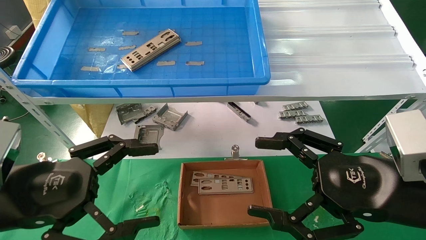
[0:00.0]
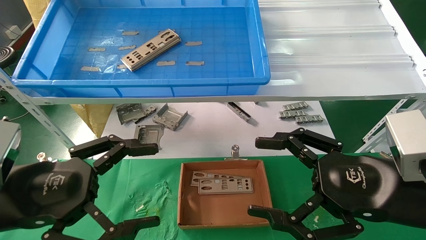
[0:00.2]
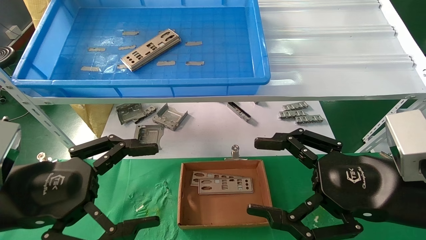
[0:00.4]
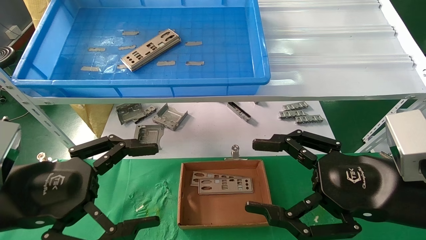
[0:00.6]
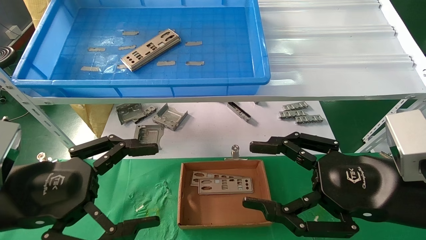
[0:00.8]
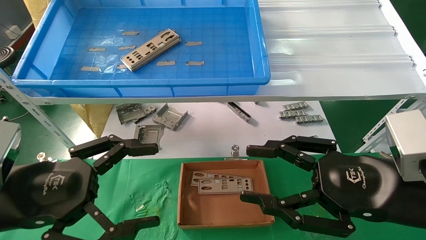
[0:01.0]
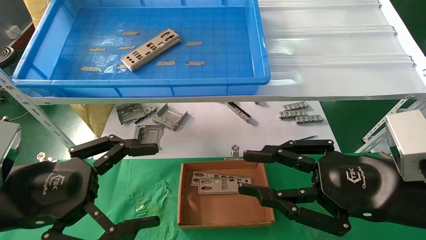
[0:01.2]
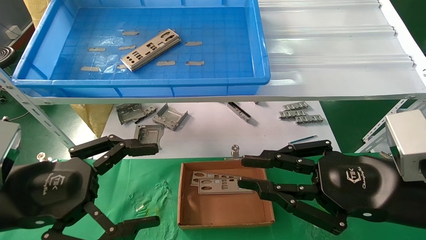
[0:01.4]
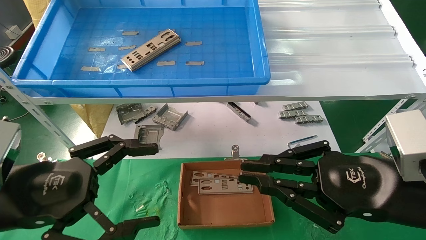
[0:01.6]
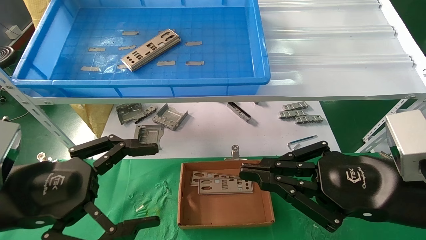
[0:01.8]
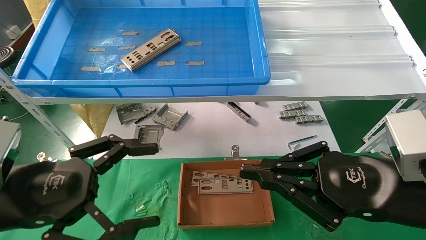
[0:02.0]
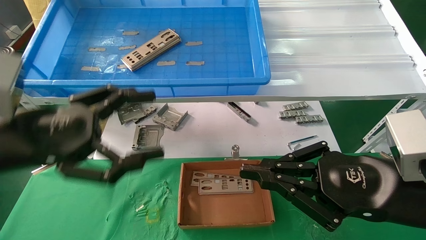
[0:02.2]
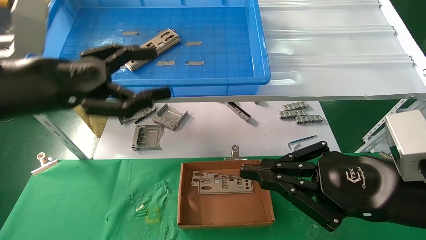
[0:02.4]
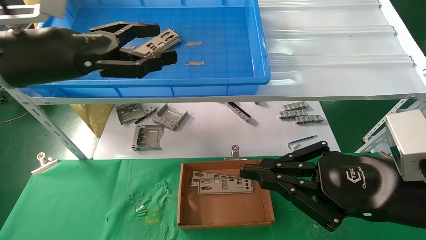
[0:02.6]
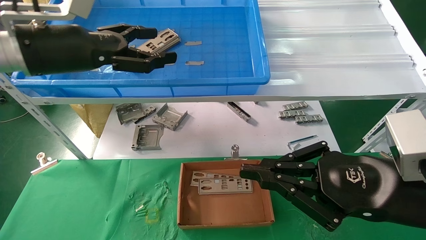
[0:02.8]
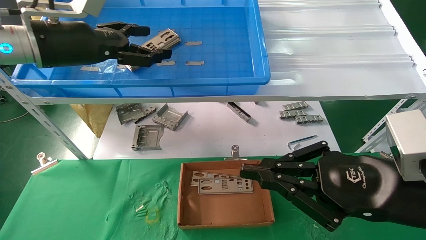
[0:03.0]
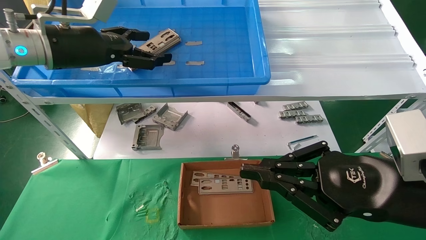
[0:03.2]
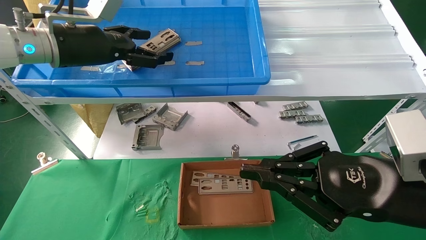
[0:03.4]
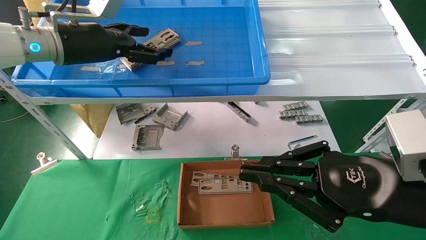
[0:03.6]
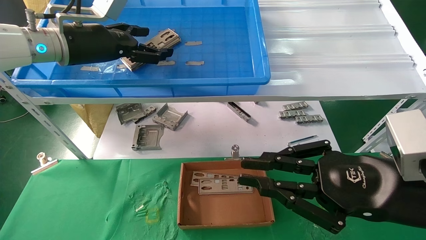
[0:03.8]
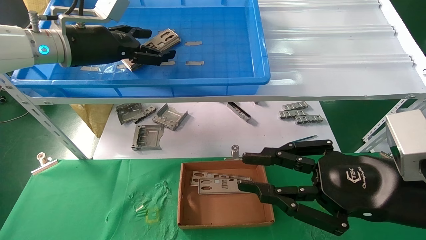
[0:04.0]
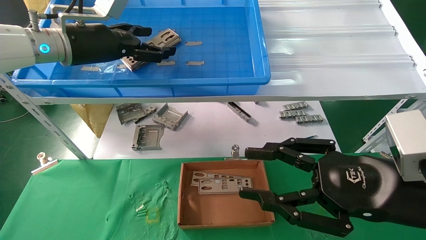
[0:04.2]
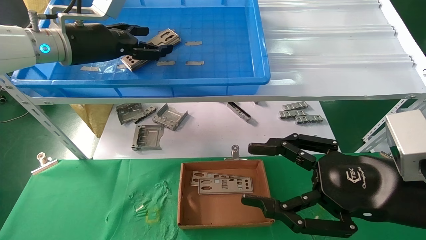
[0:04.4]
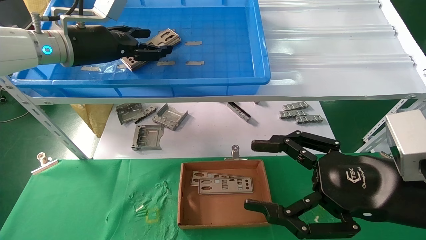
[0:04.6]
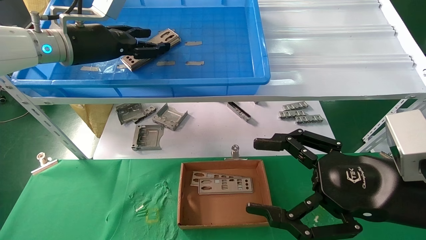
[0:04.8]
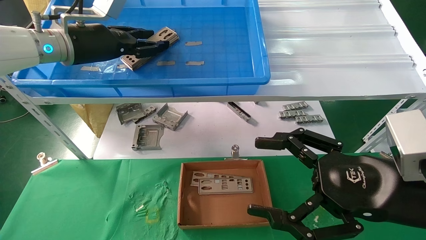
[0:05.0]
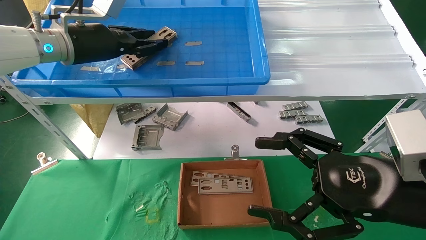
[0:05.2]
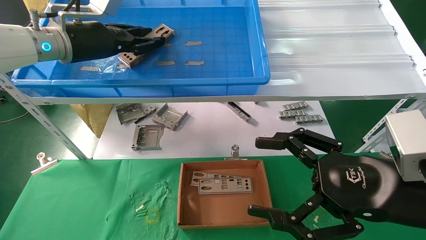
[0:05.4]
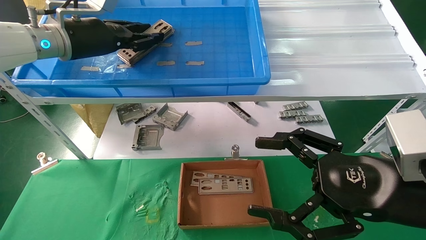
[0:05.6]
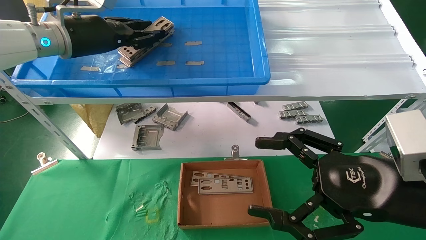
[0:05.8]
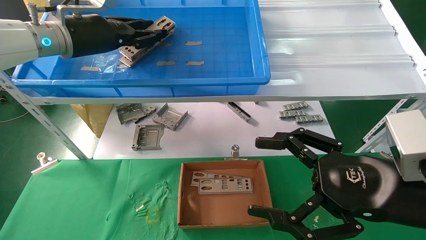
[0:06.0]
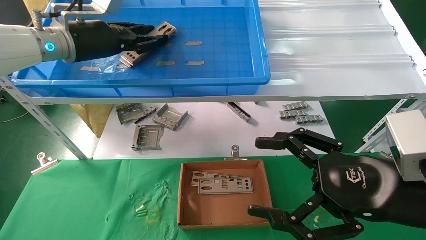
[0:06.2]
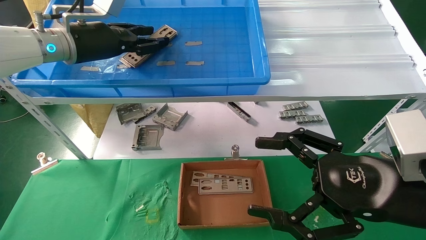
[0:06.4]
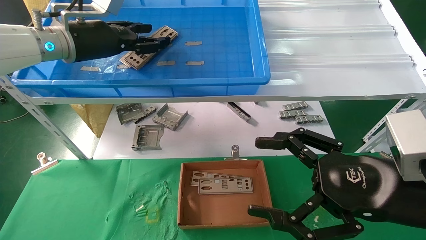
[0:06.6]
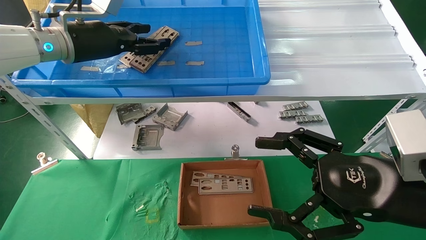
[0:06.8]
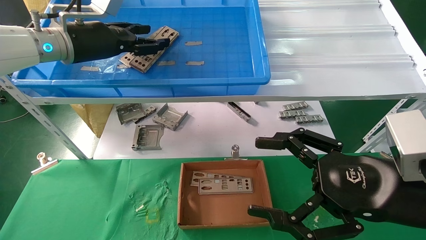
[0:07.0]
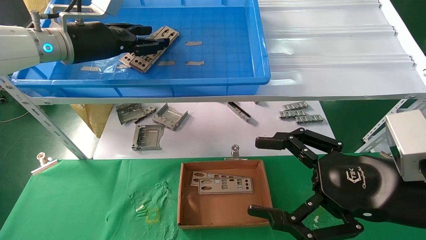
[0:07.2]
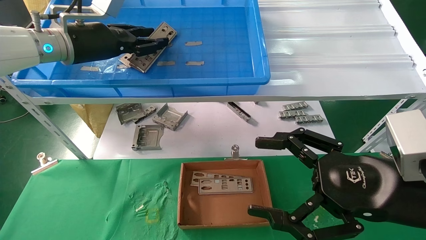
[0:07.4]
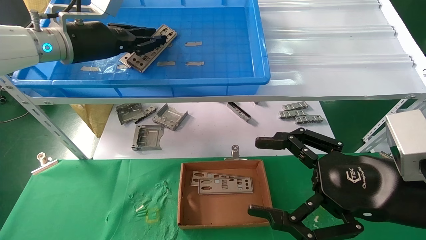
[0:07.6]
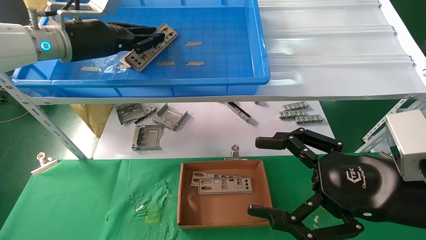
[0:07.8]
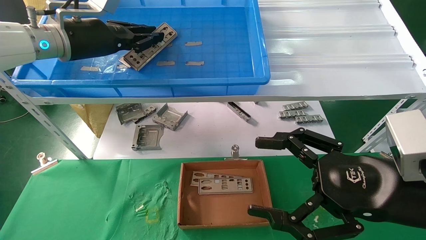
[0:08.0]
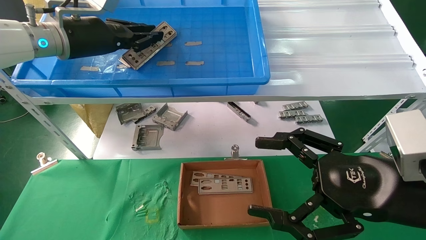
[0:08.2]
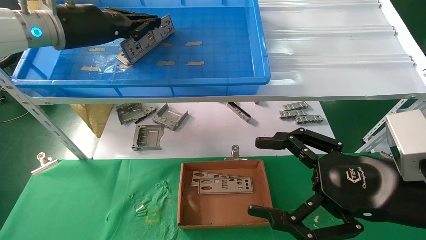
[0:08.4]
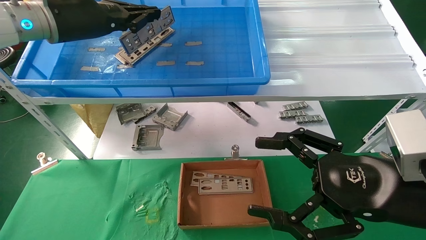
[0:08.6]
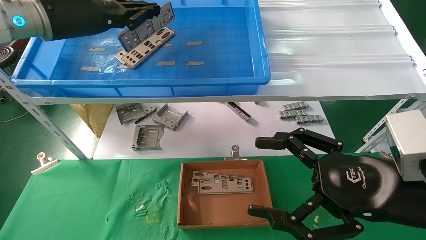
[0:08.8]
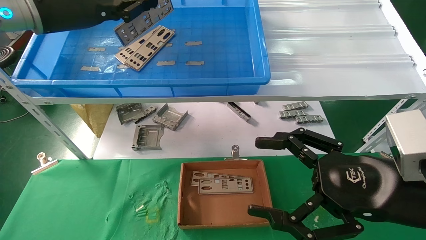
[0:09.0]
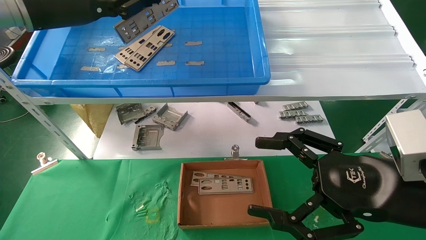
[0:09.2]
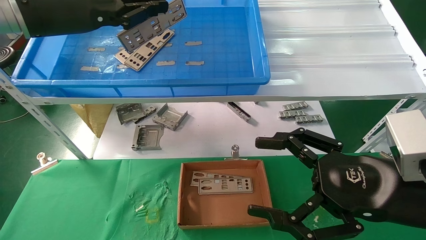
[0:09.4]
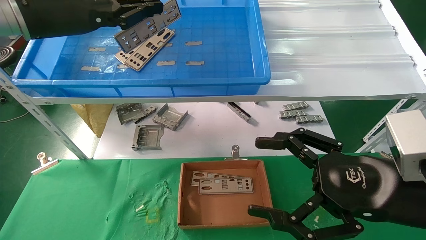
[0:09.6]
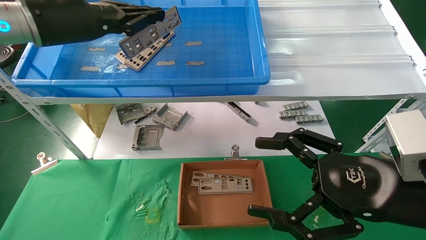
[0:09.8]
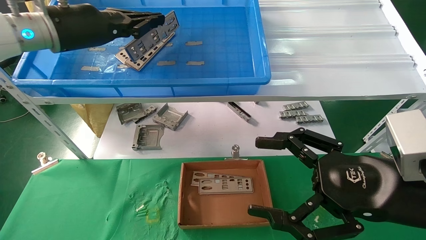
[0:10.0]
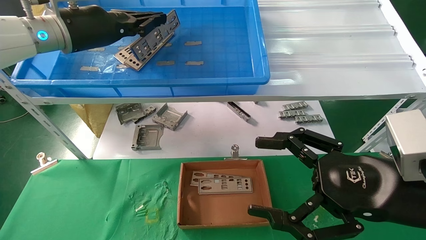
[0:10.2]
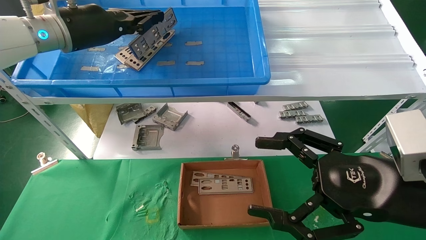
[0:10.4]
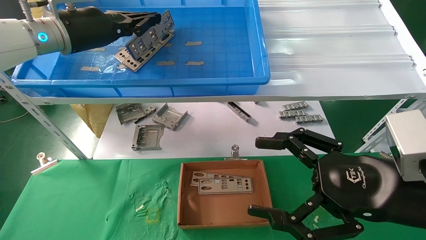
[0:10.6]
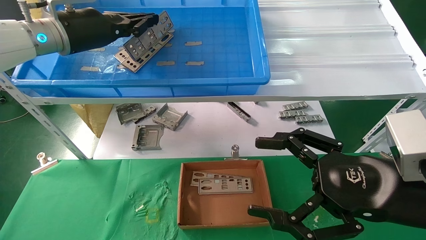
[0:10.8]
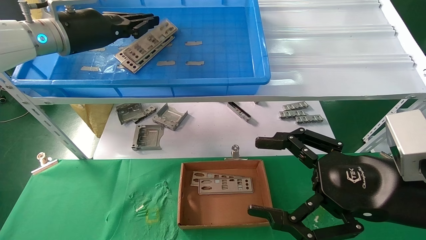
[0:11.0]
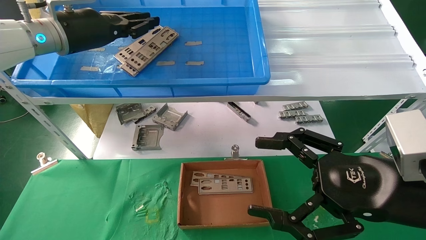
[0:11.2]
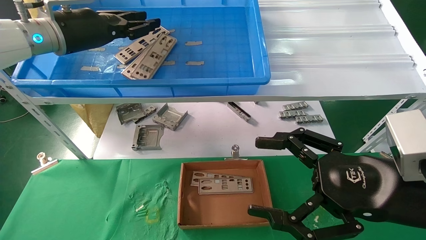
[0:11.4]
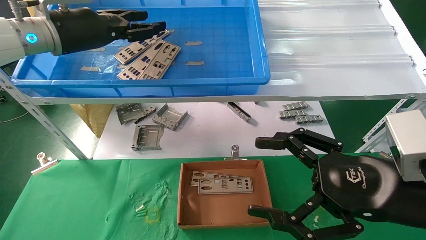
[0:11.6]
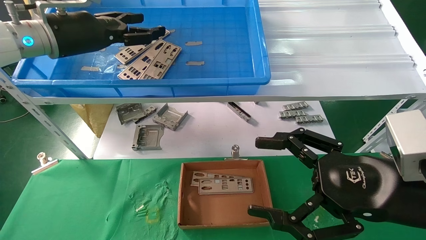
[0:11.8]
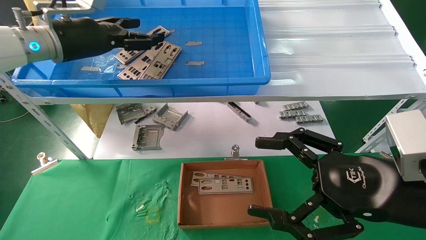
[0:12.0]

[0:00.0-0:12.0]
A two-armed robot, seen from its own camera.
Task of the whole recording: pick up the parts on the tray and put them in the cardboard box.
0:00.0 to 0:01.6: The right gripper closes.
0:01.6 to 0:03.0: The left gripper moves forward and upward, roughly 25 cm.
0:03.0 to 0:04.4: The right gripper opens.
0:04.4 to 0:06.0: The left gripper closes up, while the right gripper opens.
0:06.0 to 0:07.6: Both grippers stay about where they are.
0:07.6 to 0:09.0: The left gripper shifts by some 5 cm, and closes.
0:09.0 to 0:10.4: The grippers move only a little.
0:10.4 to 0:12.0: The left gripper opens up.

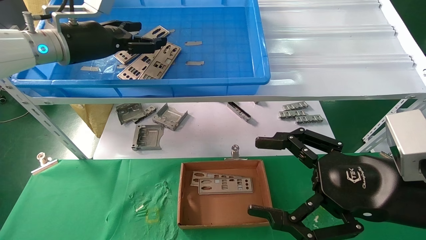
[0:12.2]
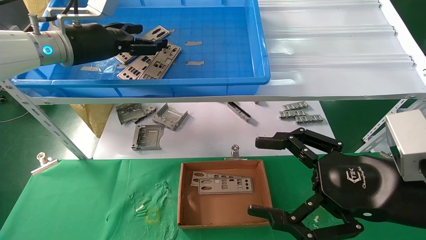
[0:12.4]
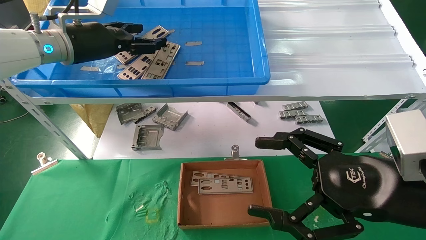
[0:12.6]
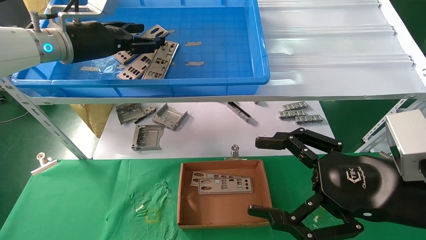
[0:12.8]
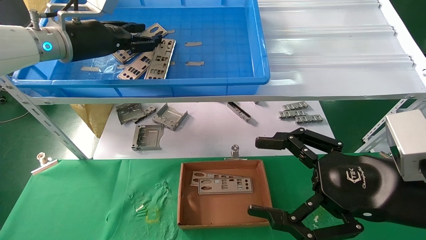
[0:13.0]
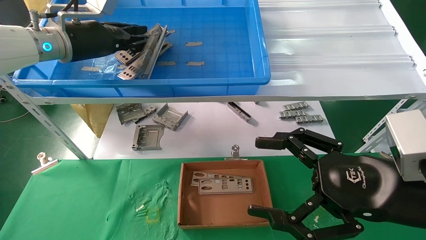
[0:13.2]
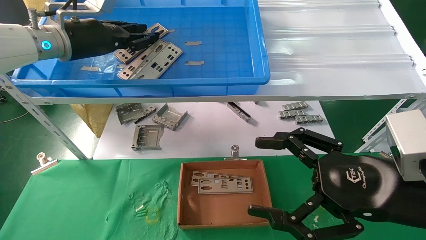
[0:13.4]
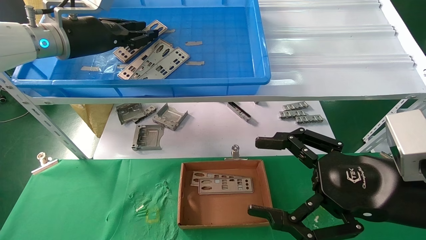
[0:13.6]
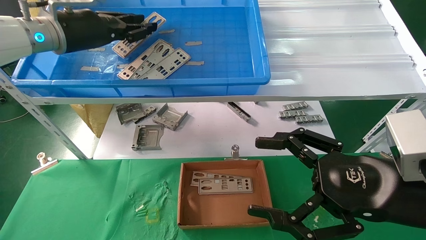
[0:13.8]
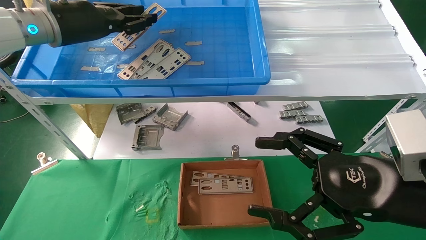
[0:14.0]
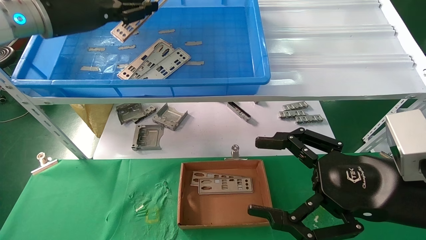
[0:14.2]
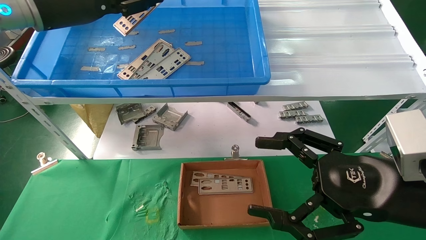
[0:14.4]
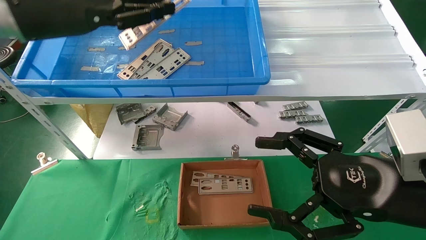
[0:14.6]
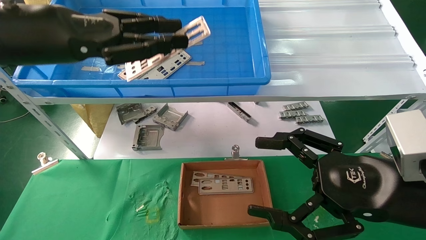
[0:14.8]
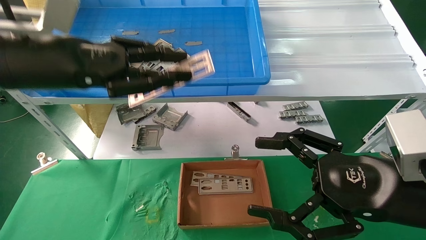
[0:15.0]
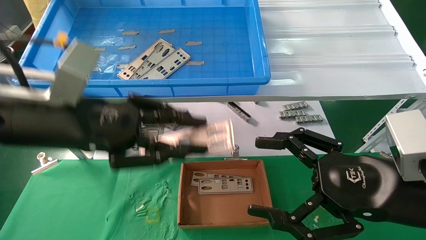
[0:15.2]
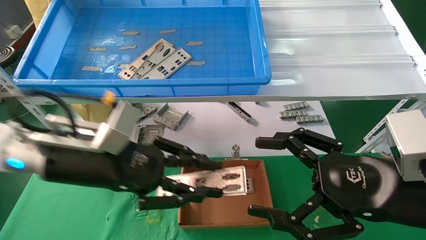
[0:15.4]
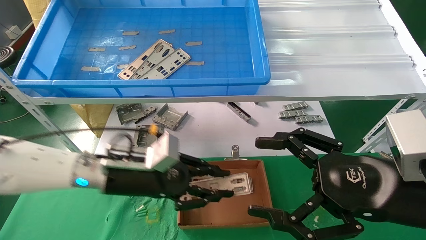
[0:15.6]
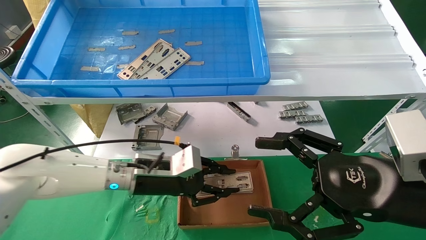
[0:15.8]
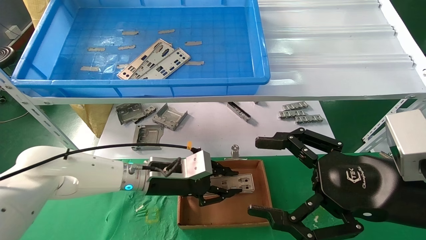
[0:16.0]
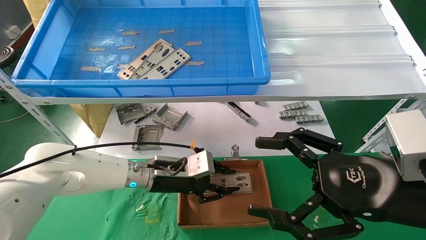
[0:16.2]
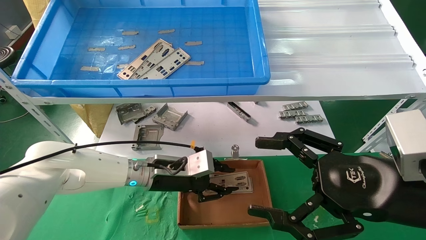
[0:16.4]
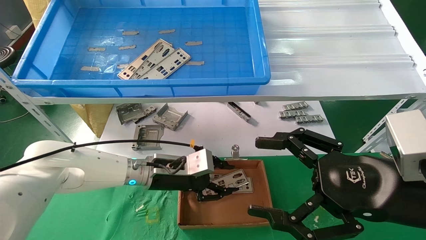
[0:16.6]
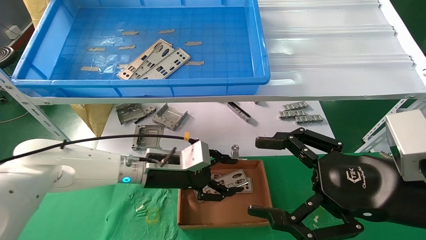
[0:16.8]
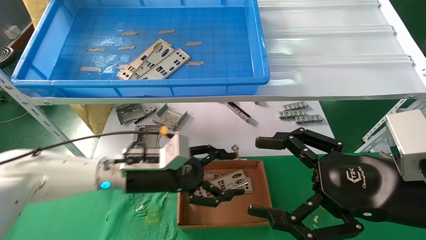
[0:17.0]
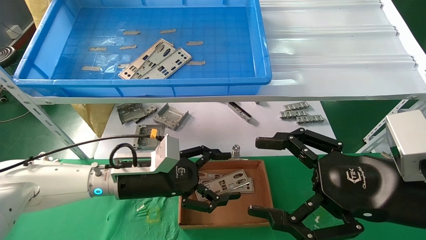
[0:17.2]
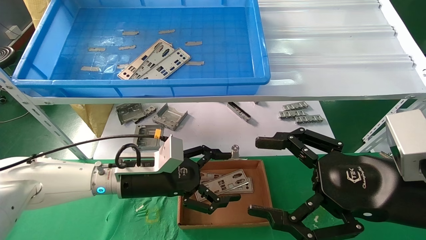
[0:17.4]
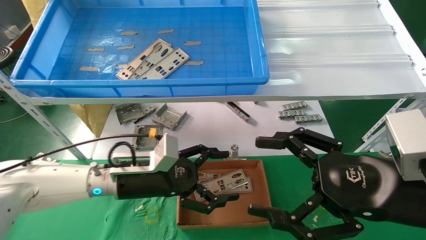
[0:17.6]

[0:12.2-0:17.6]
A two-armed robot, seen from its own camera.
Task of the whole recording: pick up the parts on the tray and put them in the cardboard box.
Step, 0:13.8 to 0:16.8: Place the IO bracket into the ingredient slot.
0:12.2 to 0:13.6: The left gripper closes.
0:13.6 to 0:15.0: The left gripper travels backward by some 15 cm.
0:15.0 to 0:16.2: The left gripper heads downward, to the right and forward, covering approximately 30 cm.
0:16.2 to 0:17.6: The left gripper heads backward, covering approximately 5 cm, and opens.
